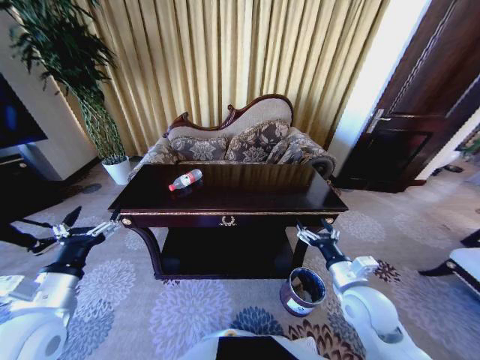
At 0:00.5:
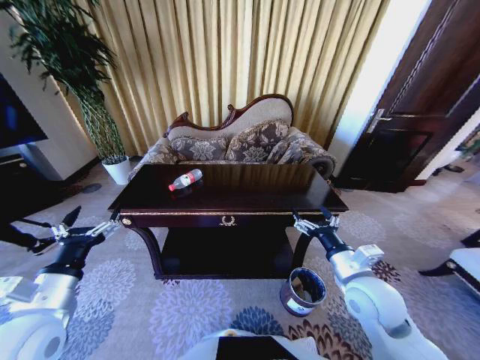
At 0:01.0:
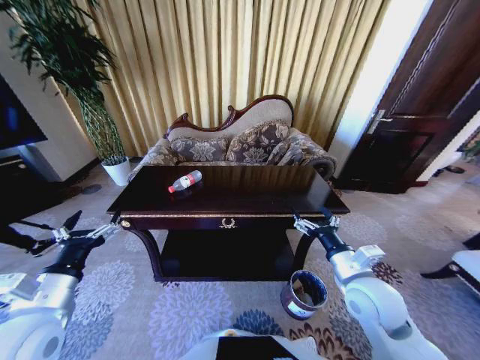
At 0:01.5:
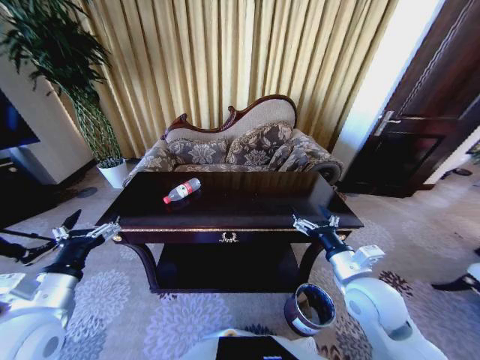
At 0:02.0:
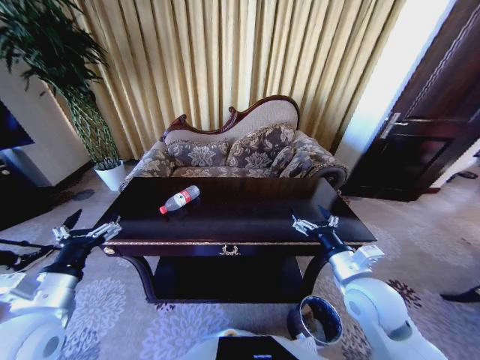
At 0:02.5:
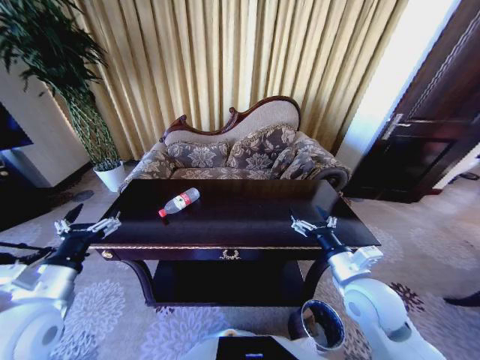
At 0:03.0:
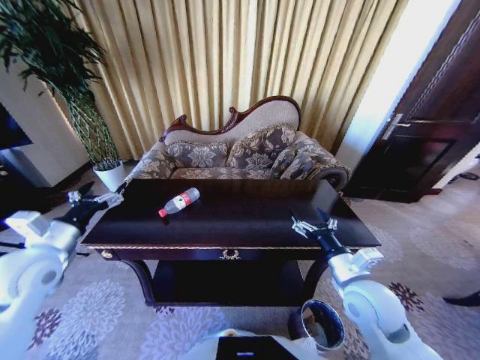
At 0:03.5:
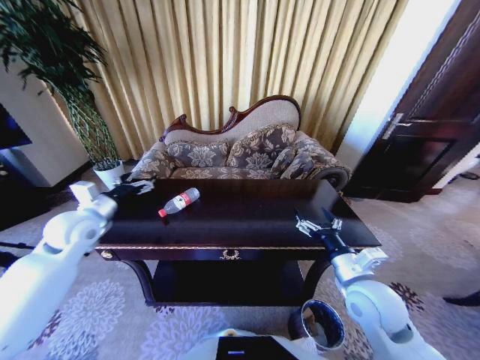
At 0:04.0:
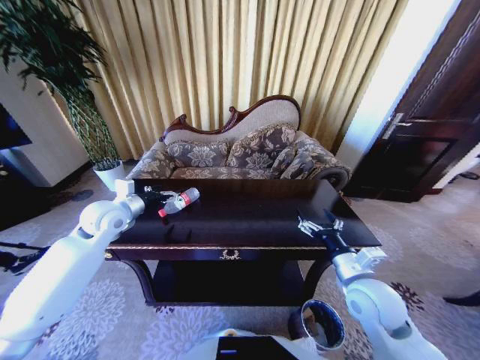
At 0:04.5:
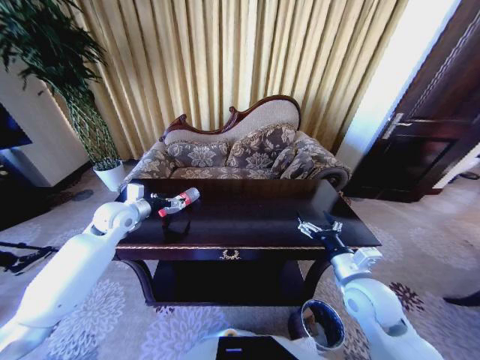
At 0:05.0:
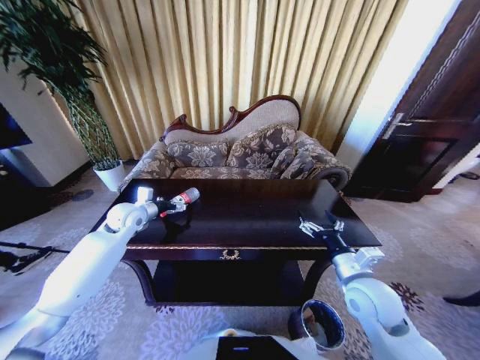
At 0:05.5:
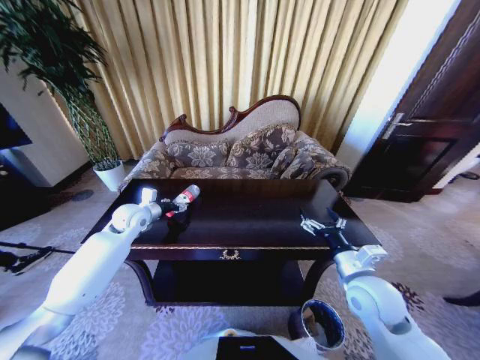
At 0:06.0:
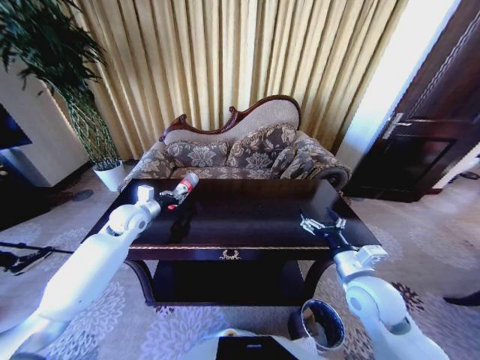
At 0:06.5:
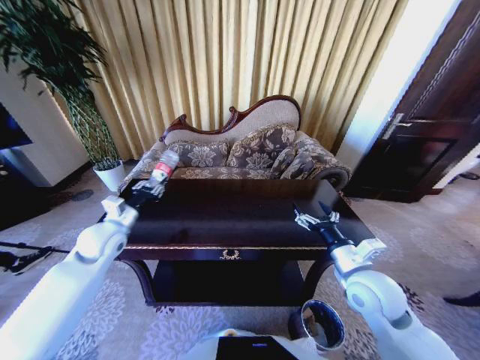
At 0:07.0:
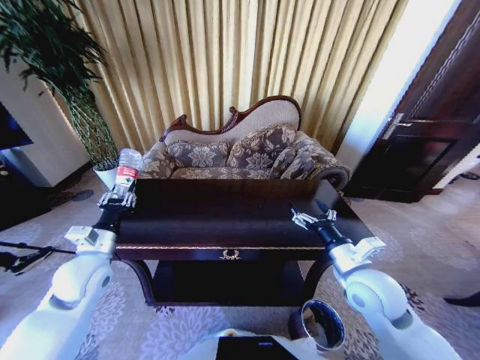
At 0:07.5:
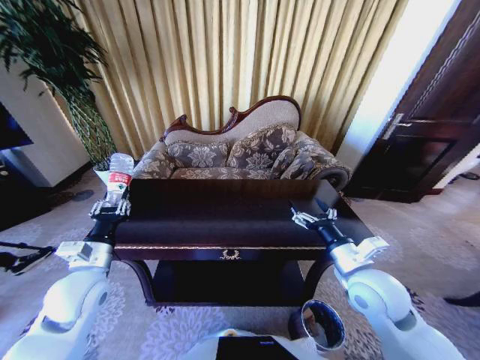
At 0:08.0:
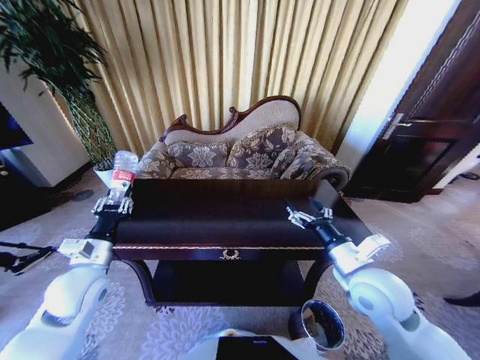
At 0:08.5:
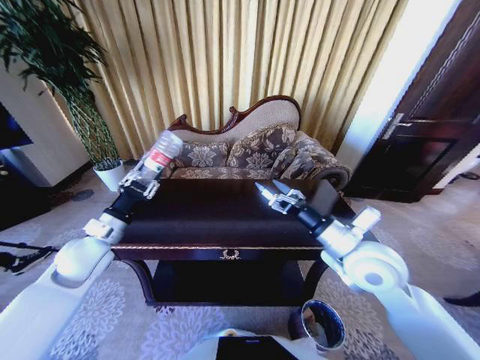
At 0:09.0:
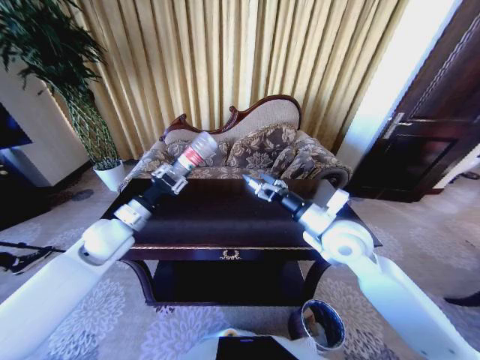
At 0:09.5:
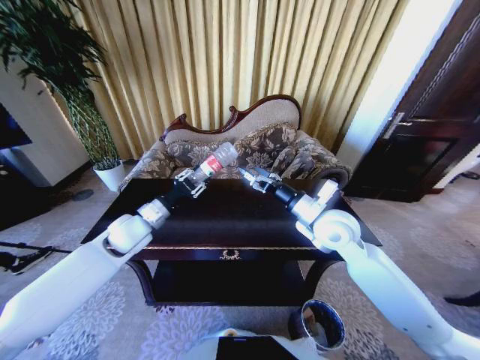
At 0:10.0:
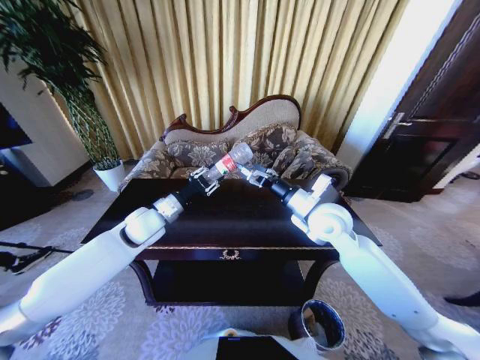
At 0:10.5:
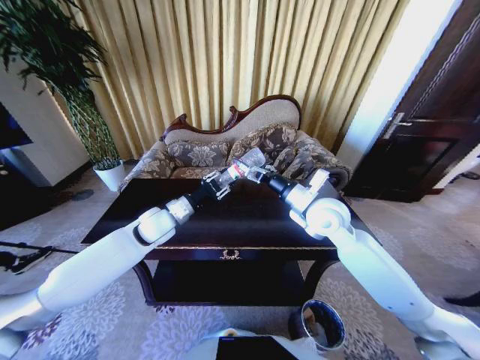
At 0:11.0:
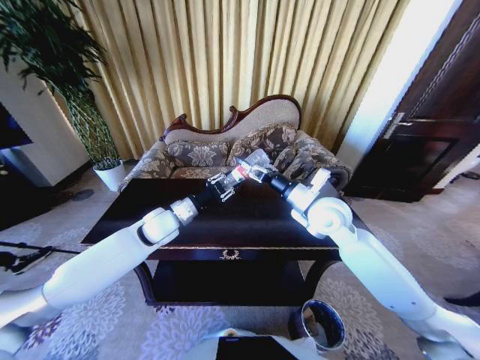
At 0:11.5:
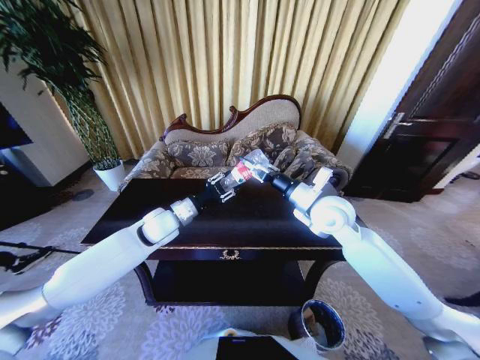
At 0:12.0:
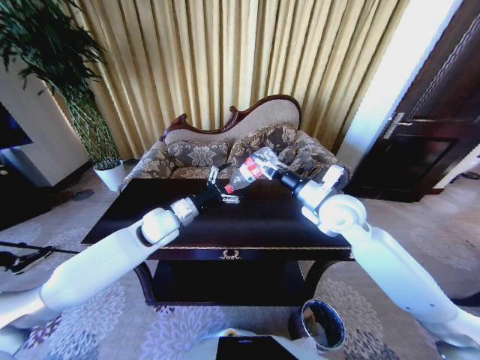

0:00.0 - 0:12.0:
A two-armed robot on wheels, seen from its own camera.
Task of the whole recording: Move to the front of the table and place the trash on the table into the trash bin.
0:00.0 - 0:02.0: The right gripper changes place by approximately 5 cm.
0:02.0 - 0:04.0: The left gripper moves forward, roughly 25 cm.
0:04.0 - 0:06.0: The left gripper goes about 5 cm downward, and closes.
0:06.0 - 0:08.0: The left gripper is displaced backward by roughly 20 cm.
0:08.0 - 0:10.0: The left gripper travels forward and to the right by roughly 20 cm; the right gripper heads forward, covering roughly 15 cm.
0:10.0 - 0:12.0: The right gripper closes up. The left gripper opens.

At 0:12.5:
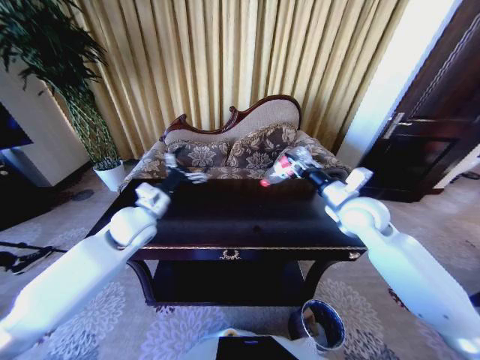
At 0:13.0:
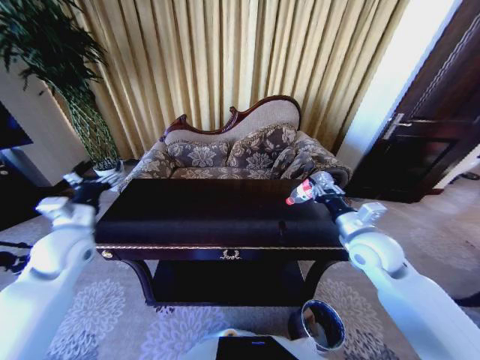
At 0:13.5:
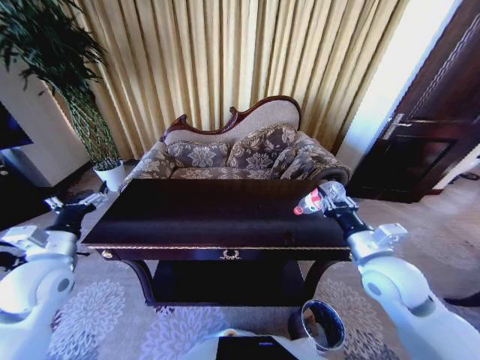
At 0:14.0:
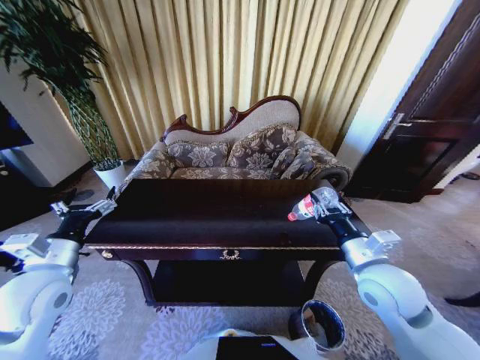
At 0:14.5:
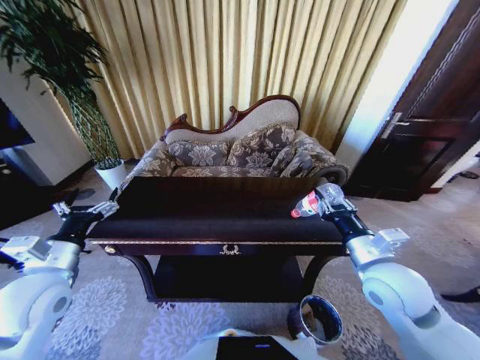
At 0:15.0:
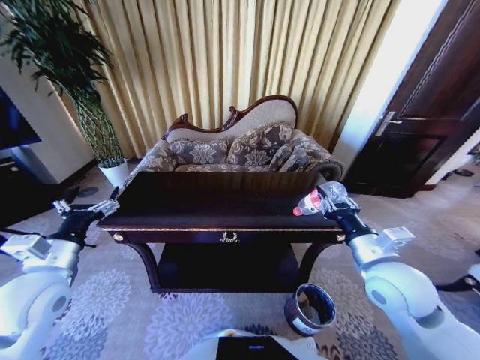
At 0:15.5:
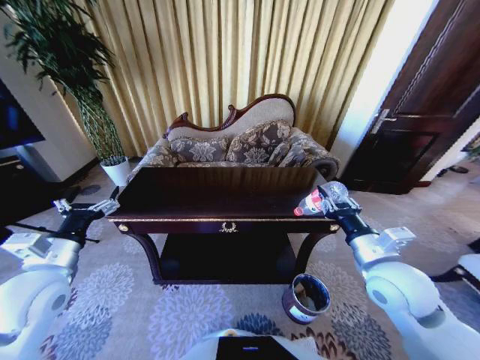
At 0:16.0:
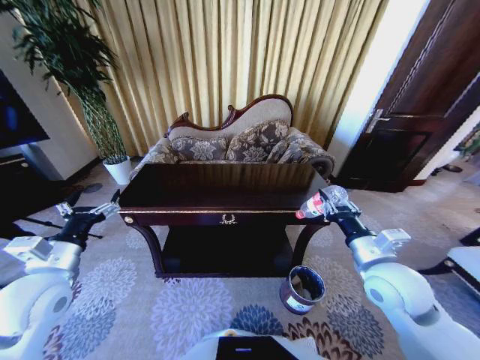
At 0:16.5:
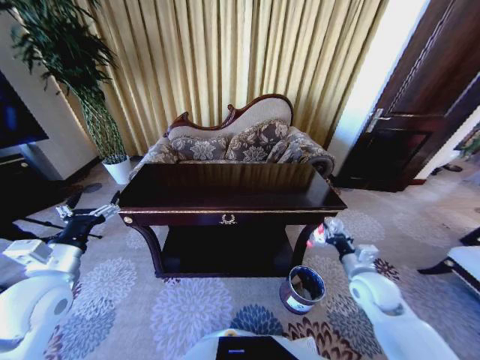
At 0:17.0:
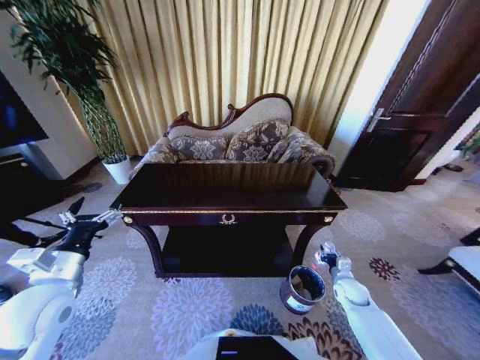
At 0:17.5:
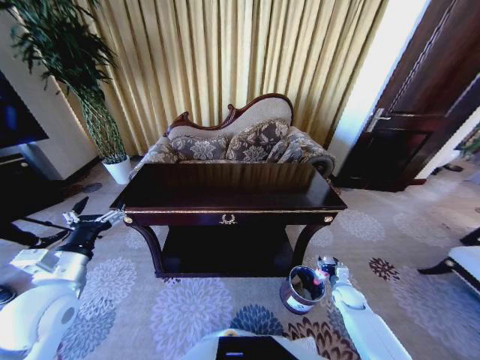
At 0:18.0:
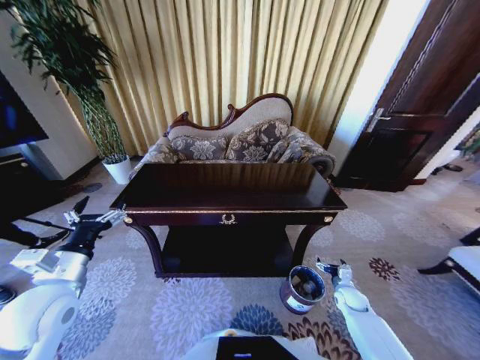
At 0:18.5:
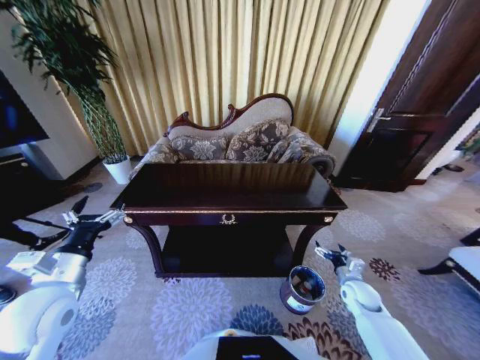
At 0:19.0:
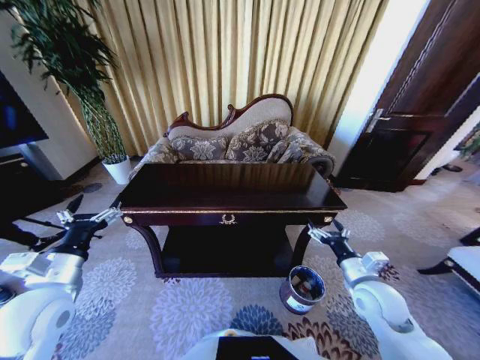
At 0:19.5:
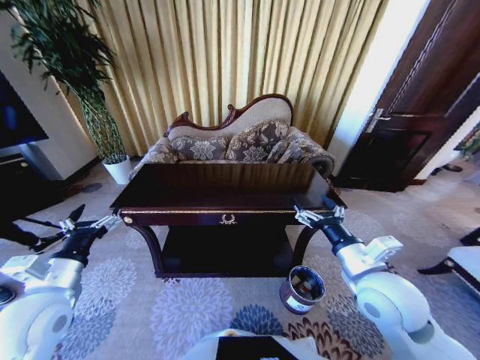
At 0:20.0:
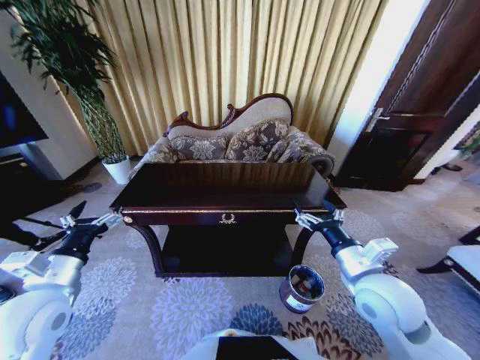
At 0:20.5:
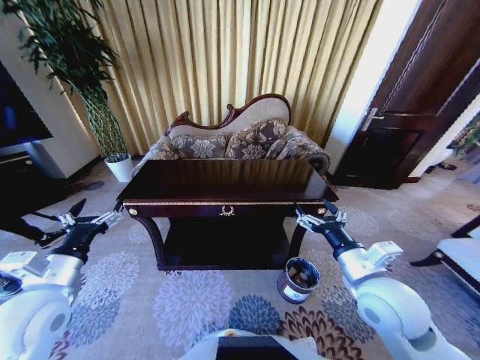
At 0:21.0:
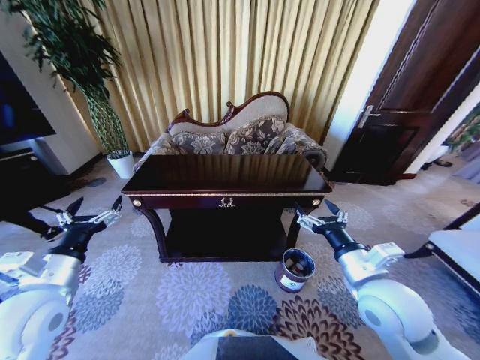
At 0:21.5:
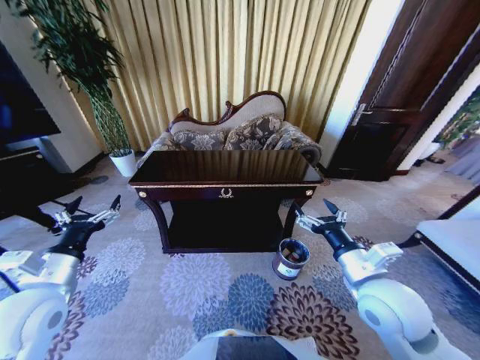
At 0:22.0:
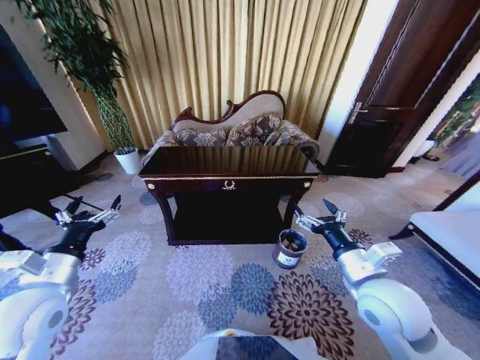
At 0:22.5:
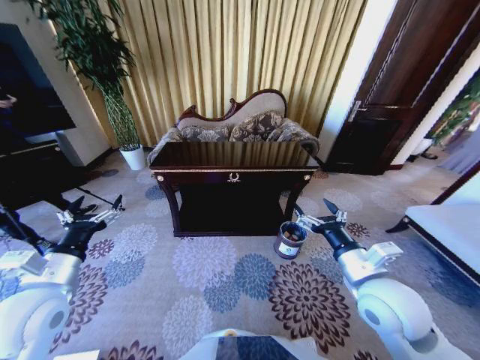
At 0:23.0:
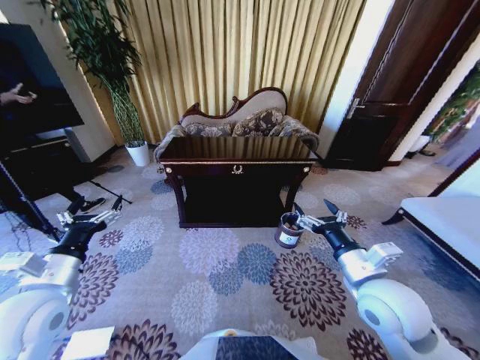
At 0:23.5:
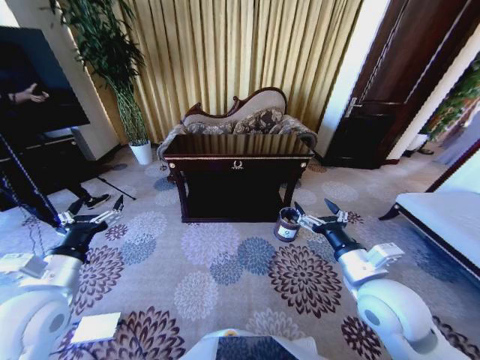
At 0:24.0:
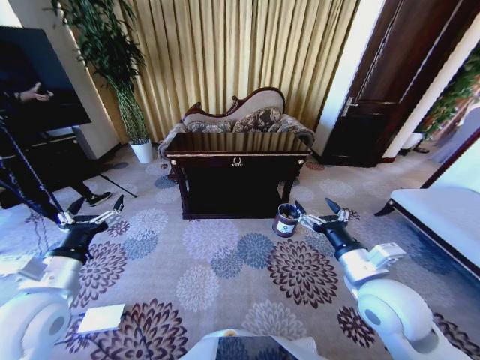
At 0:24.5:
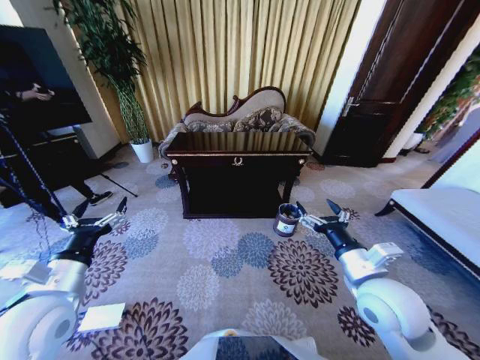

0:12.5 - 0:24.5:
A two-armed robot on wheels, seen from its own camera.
Task of the whole recording: Move to the front of the table and place the trash on the table into the trash bin.
0:12.5 - 0:14.5: The left gripper shifts approximately 20 cm backward and to the left, while the right gripper travels backward by approximately 15 cm.
0:14.5 - 0:16.5: The right gripper travels downward and to the right by roughly 15 cm.
0:16.5 - 0:18.5: The right gripper shifts about 10 cm downward, and opens up.
0:18.5 - 0:20.5: The right gripper is displaced upward and to the left by some 30 cm.
